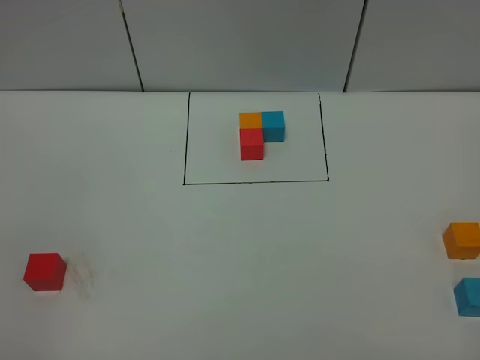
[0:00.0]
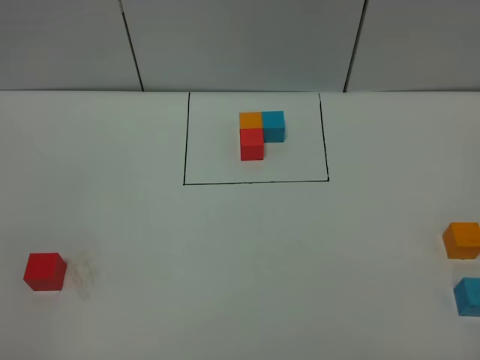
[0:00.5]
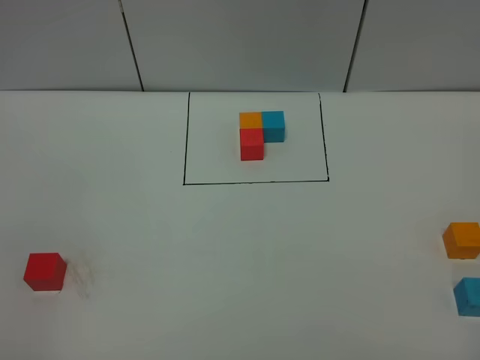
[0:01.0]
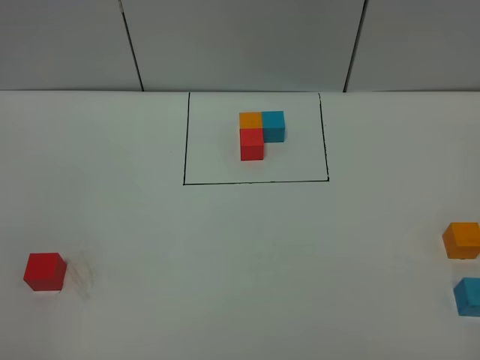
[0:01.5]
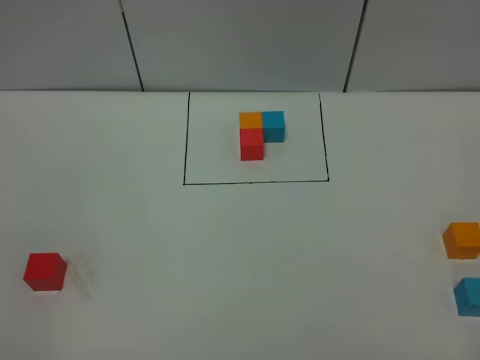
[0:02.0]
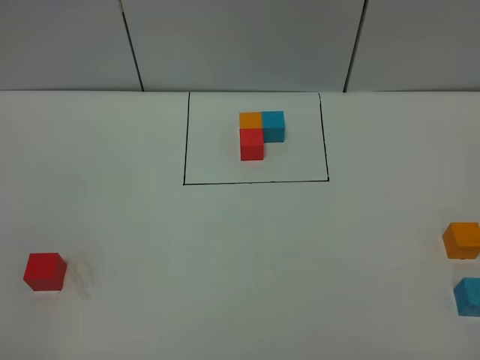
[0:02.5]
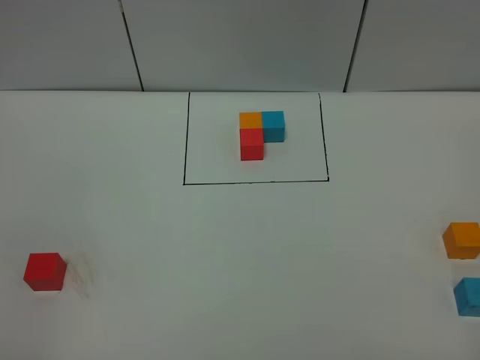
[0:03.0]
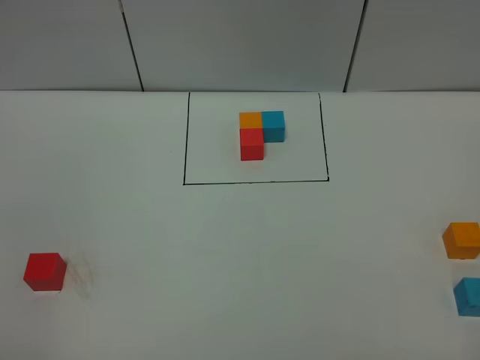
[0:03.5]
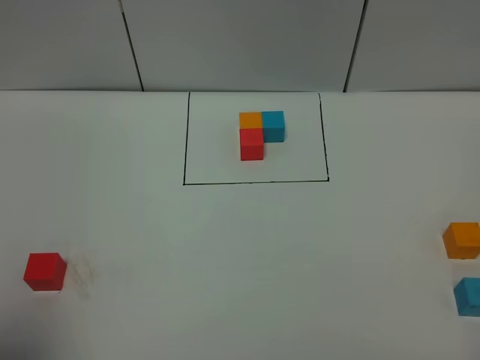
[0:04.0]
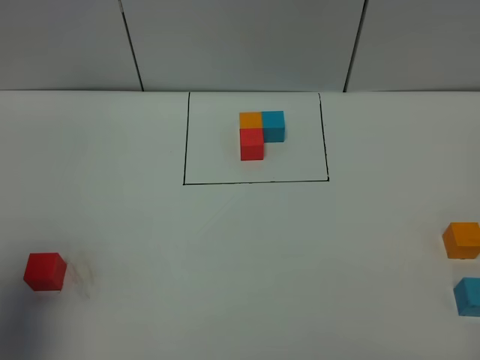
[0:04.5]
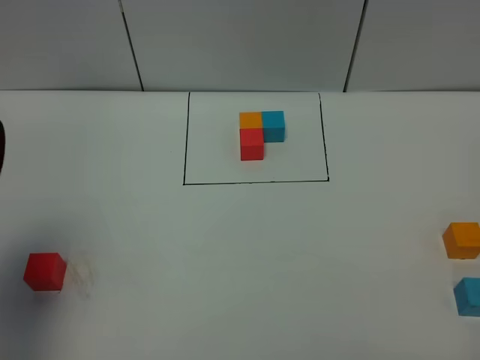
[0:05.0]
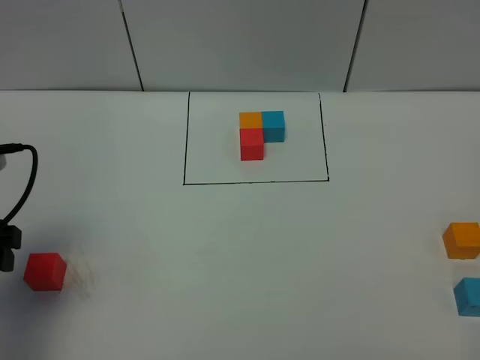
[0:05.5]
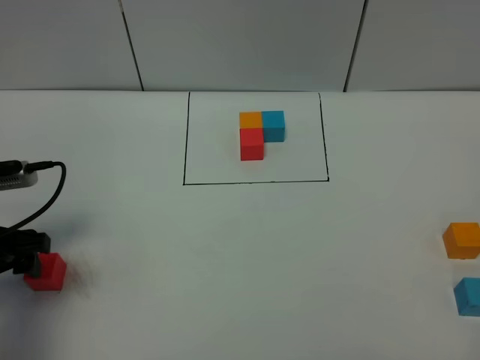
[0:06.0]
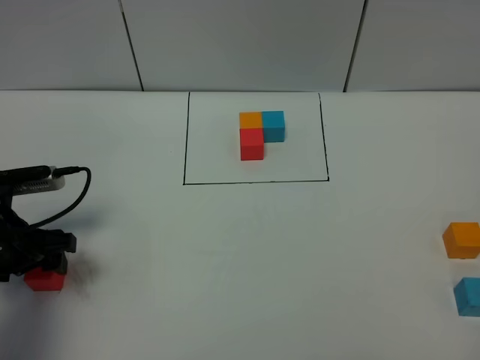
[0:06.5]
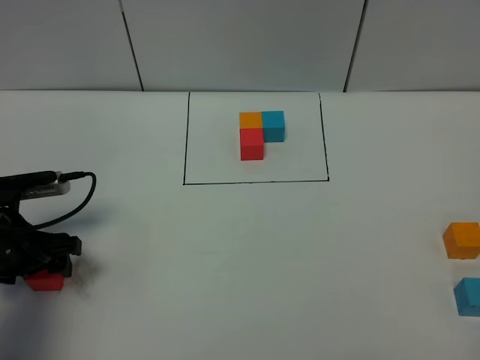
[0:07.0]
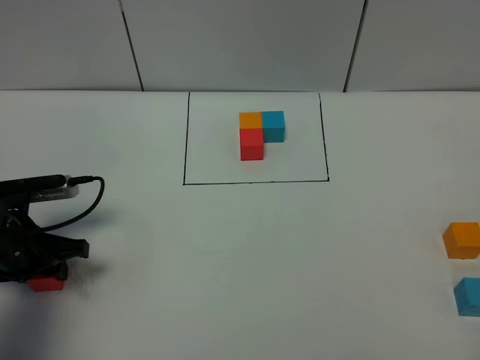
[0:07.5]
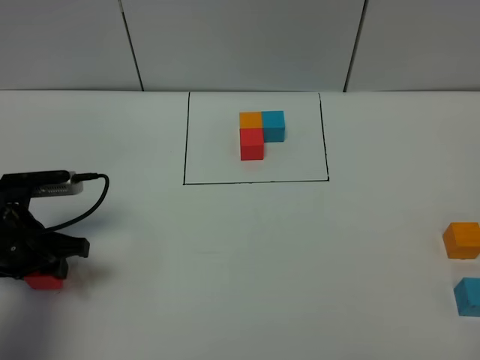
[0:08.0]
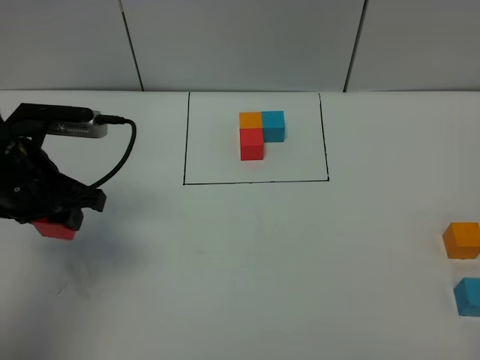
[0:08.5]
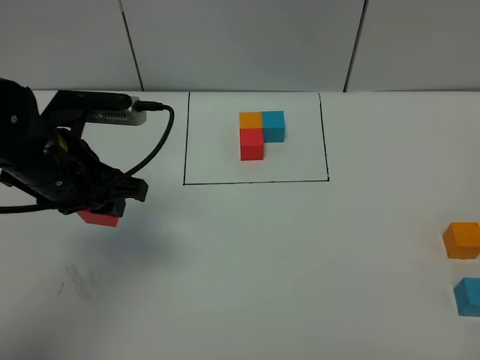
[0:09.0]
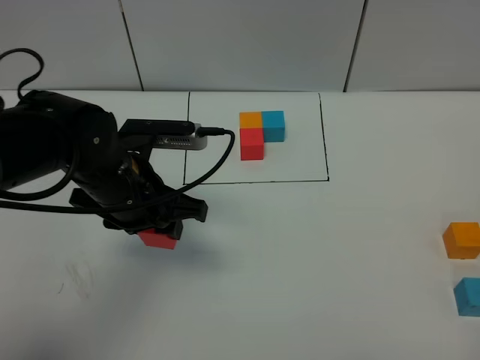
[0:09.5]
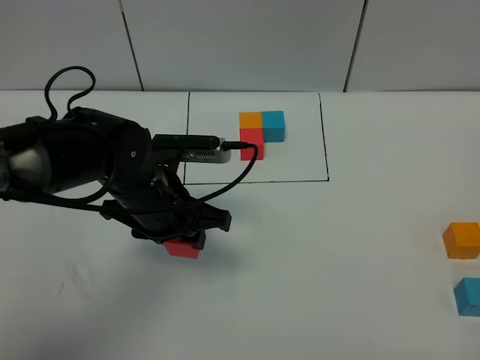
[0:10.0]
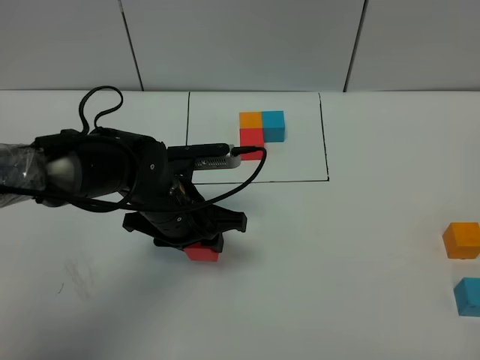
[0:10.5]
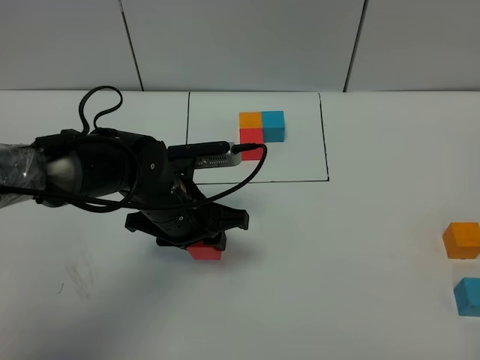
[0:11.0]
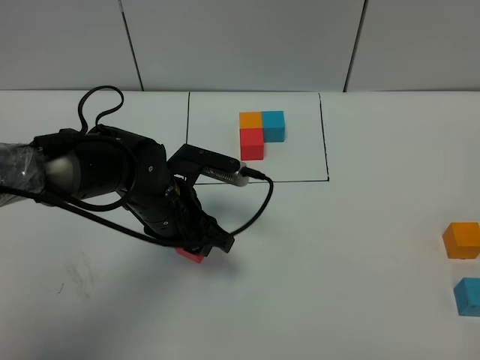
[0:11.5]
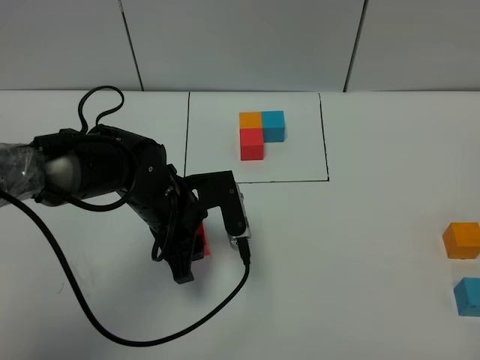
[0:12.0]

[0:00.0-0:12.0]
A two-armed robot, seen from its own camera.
Task of the whole recording: According to the building block template in front, assemble the scattered blocks together.
0:00.0 to 0:02.0: Neither gripper changes place.
0:02.0 to 0:04.0: The left gripper travels upward and forward by about 15 cm, and opens up.
0:04.0 to 0:06.0: The left gripper heads downward and forward, covering some 30 cm.
0:06.0 to 0:08.0: The left gripper moves approximately 5 cm, and closes its fingers.
0:08.0 to 0:10.0: The left gripper is displaced to the right by some 15 cm.

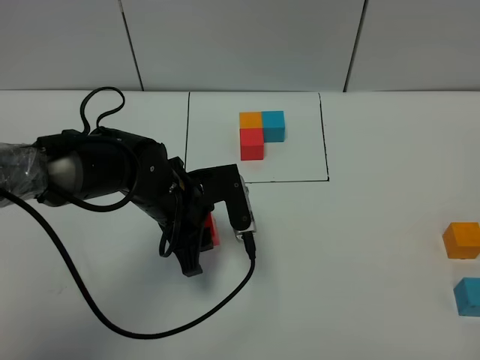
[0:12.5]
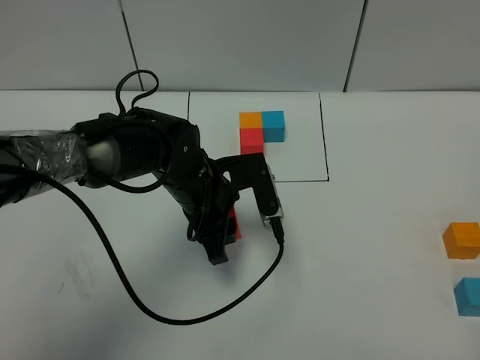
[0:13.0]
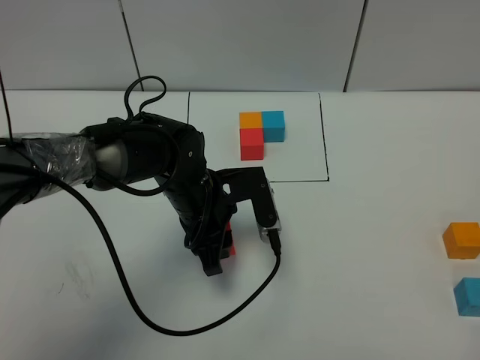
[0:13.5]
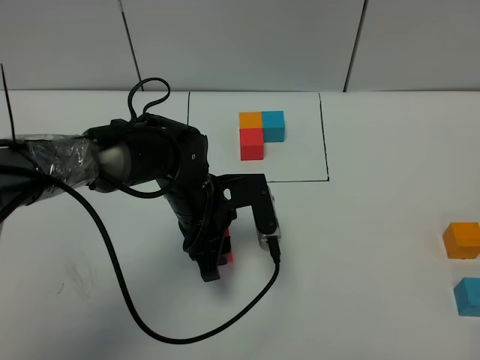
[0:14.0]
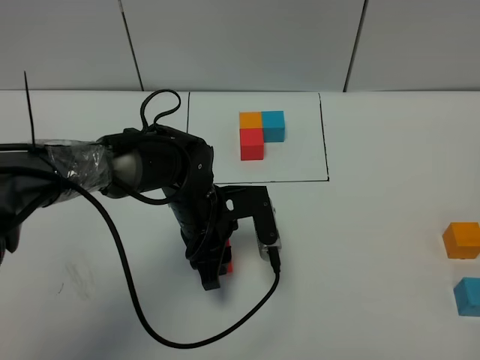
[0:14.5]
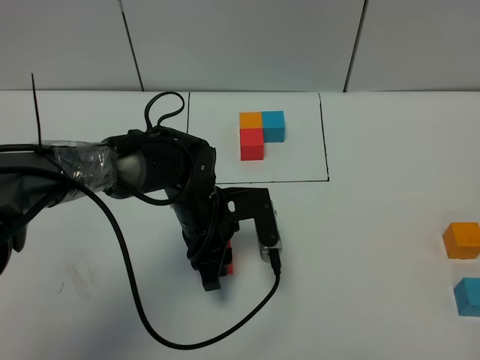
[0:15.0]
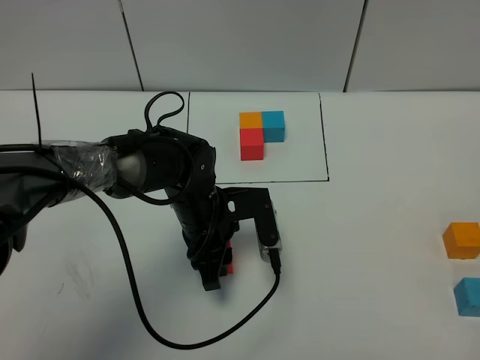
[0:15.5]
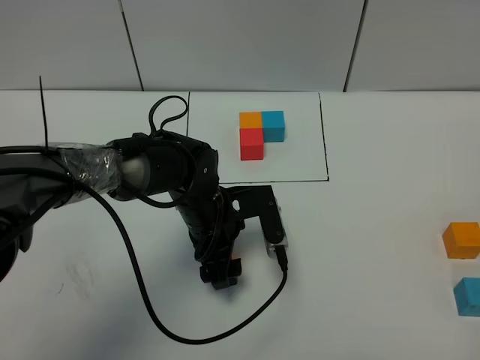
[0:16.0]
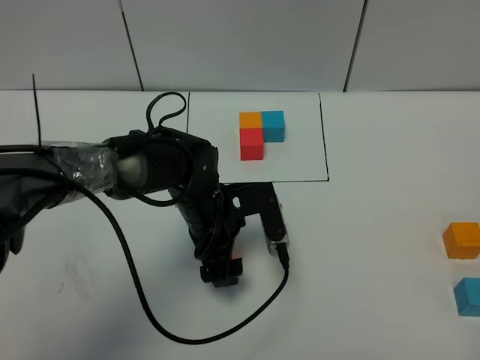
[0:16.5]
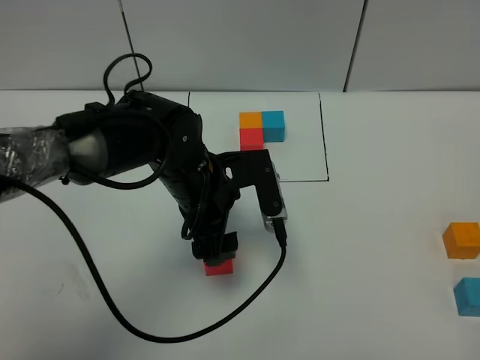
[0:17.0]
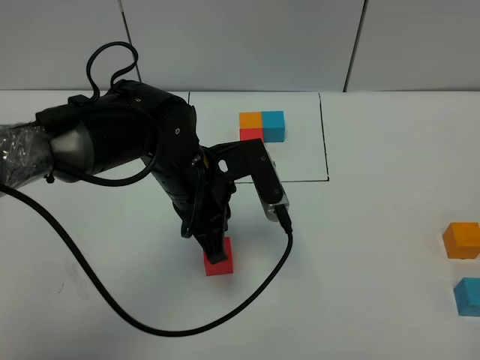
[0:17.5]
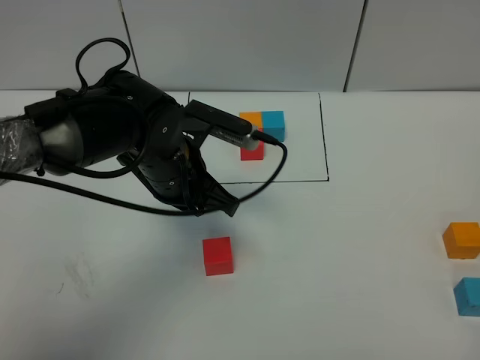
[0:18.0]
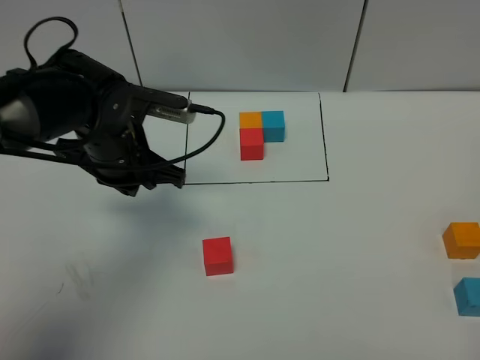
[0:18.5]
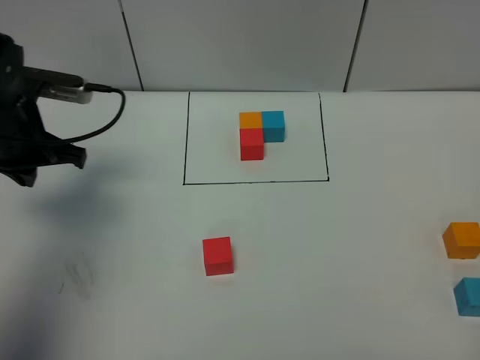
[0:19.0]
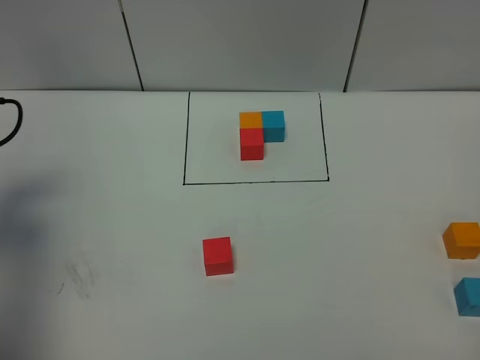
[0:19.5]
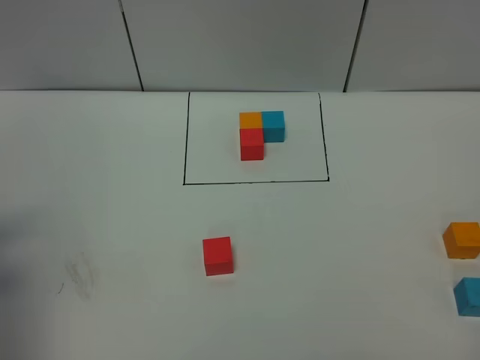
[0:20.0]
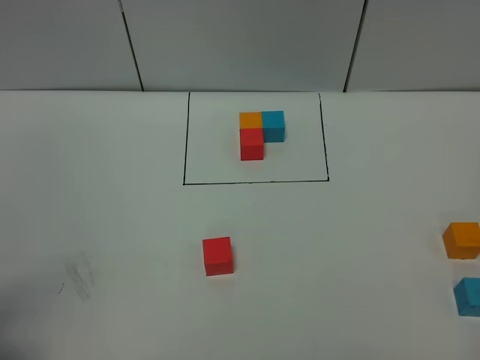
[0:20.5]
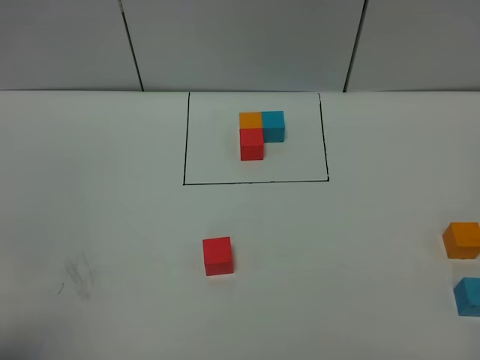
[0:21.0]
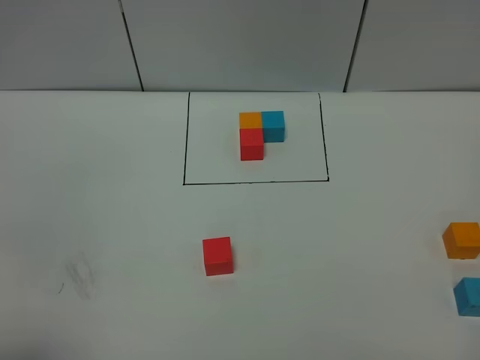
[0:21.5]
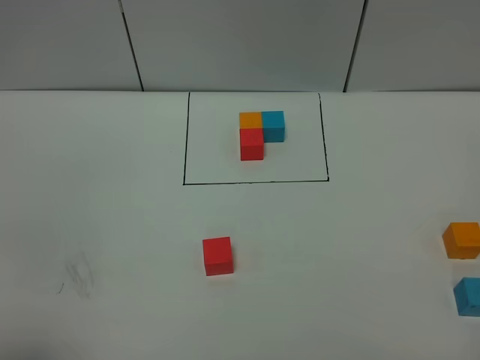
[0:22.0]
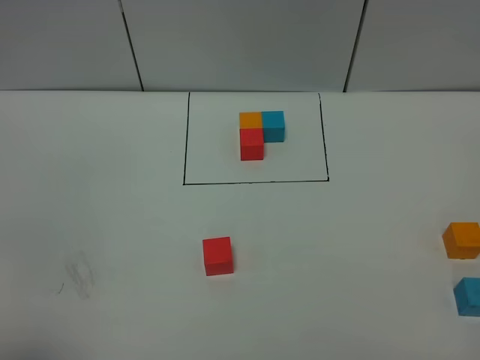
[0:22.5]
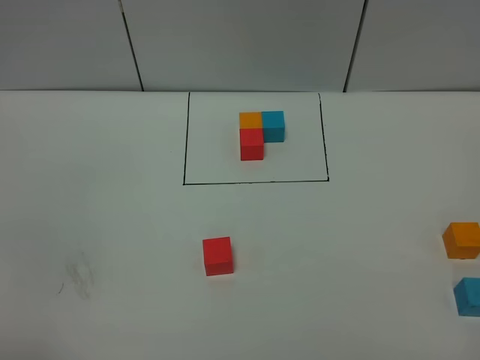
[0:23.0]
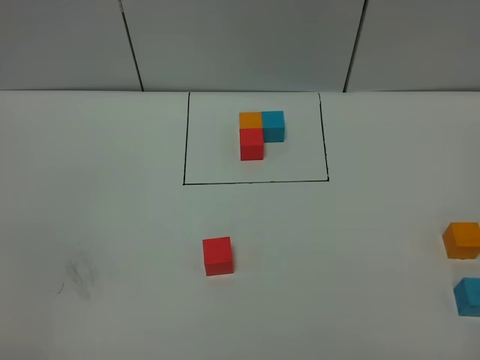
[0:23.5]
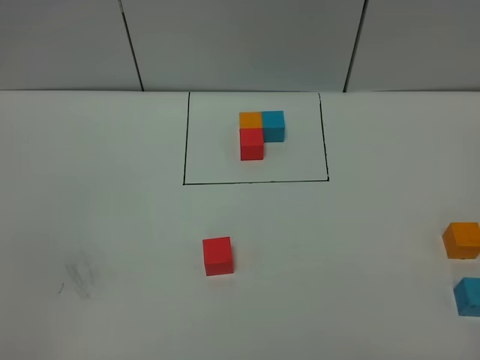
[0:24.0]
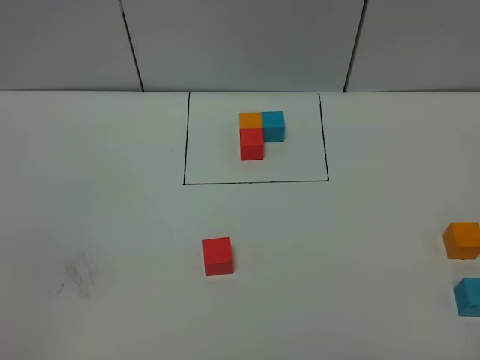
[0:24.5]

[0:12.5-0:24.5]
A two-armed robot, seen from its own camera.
Task of the whole recording: According to the building block template in front, assemble the scattered blocks together.
Step, 0:12.5 to 0:16.5: Put the red cube in the center of the table.
0:12.5 to 0:14.5: There are only small adjustments of the grippers.
0:14.5 to 0:16.5: The left gripper opens.
0:16.5 to 0:18.5: The left gripper goes some 15 cm to the left and upward, and closes.
0:18.5 to 0:20.5: The left gripper shifts about 30 cm backward and to the left.

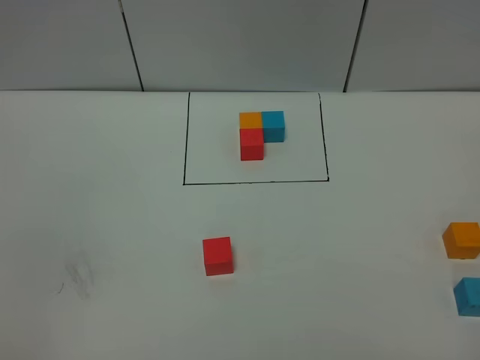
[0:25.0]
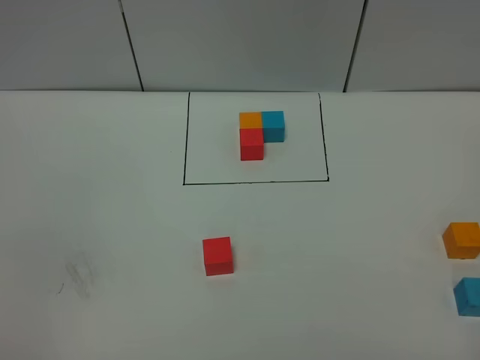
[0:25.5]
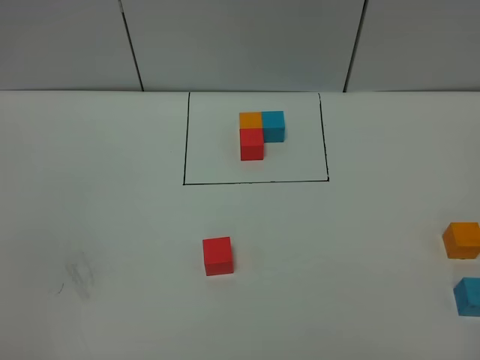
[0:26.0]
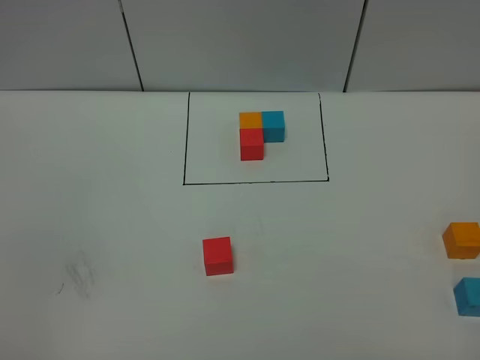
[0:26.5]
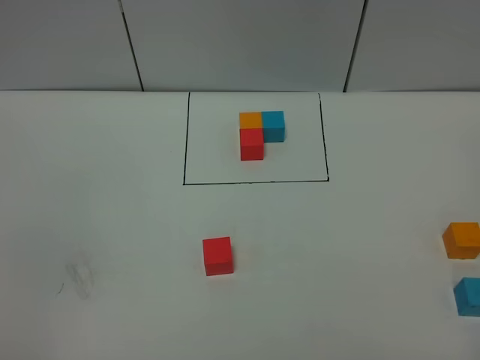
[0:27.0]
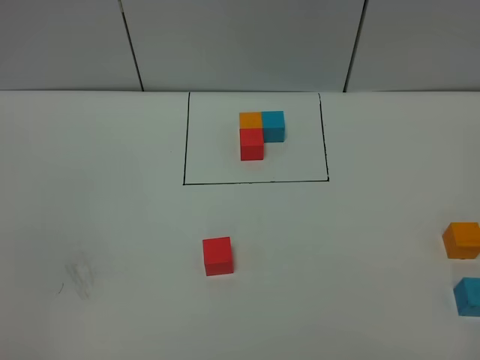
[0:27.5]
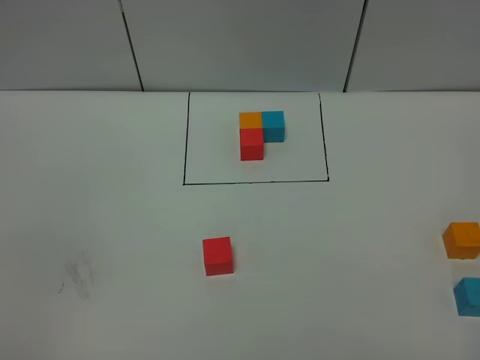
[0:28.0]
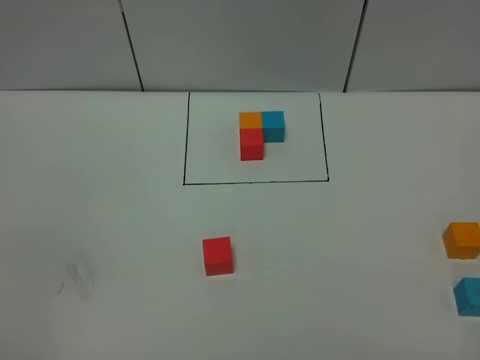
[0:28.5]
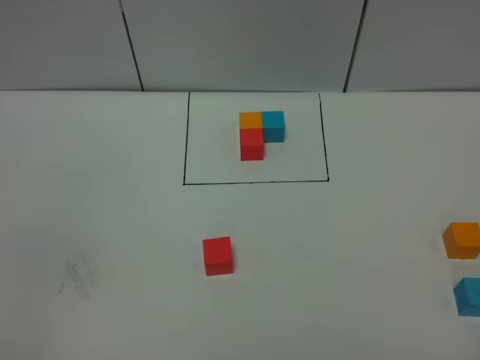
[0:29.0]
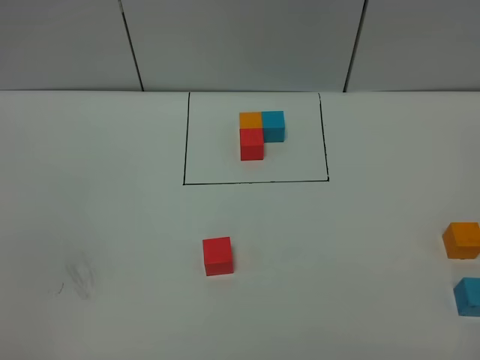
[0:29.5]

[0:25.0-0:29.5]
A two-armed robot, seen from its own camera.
Task of the whole recording: According to the building block template in front, assemble the scattered blocks together.
0:25.0 to 0:27.0: Neither gripper changes place.
